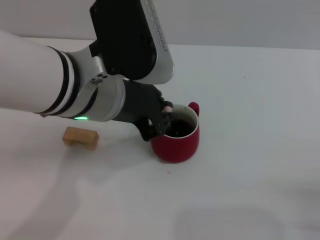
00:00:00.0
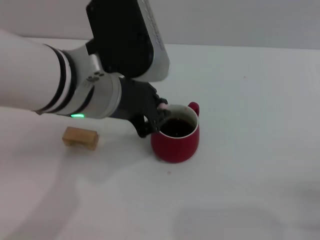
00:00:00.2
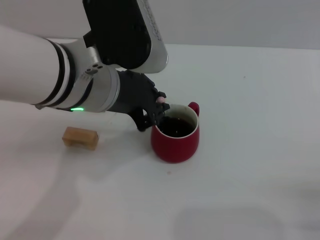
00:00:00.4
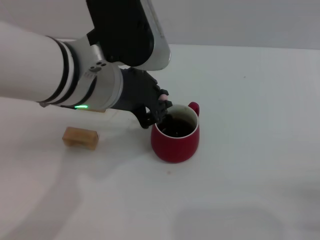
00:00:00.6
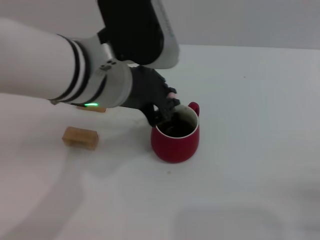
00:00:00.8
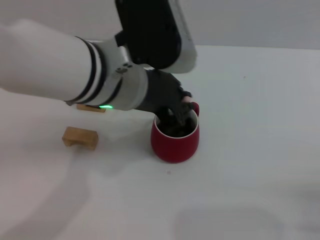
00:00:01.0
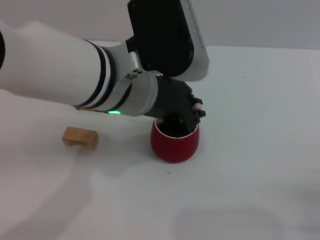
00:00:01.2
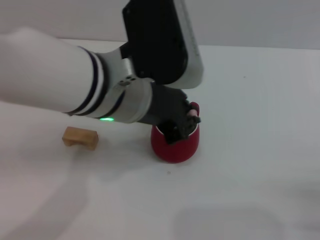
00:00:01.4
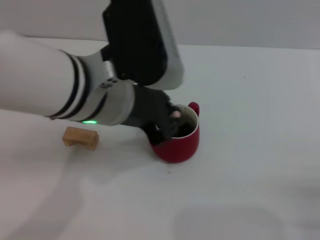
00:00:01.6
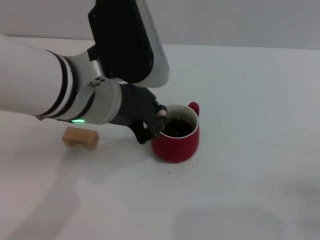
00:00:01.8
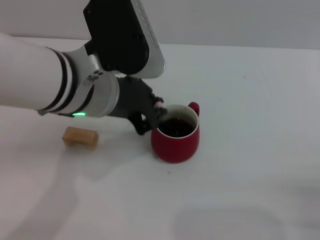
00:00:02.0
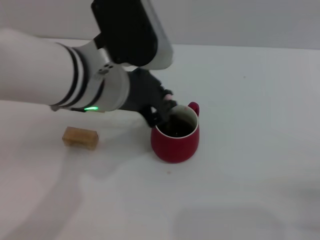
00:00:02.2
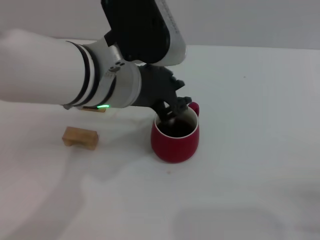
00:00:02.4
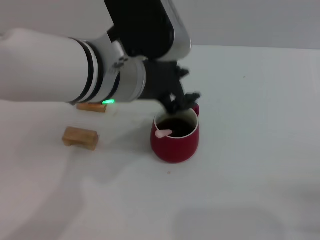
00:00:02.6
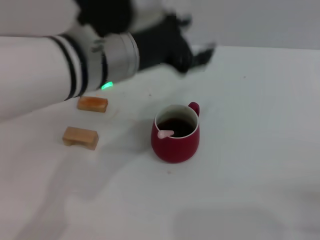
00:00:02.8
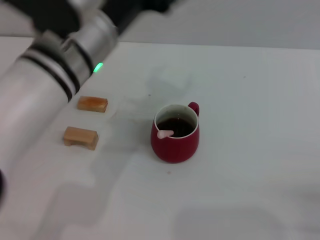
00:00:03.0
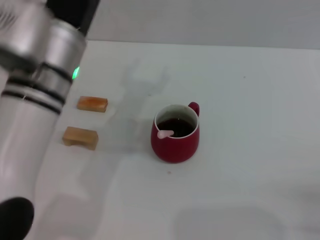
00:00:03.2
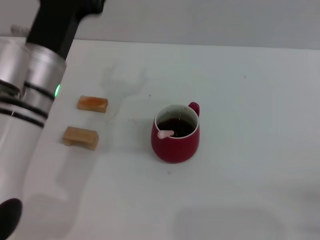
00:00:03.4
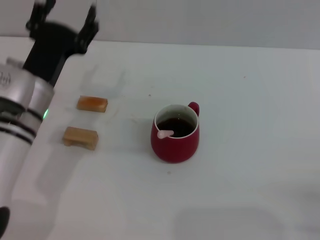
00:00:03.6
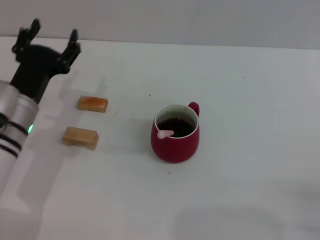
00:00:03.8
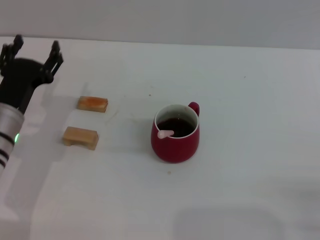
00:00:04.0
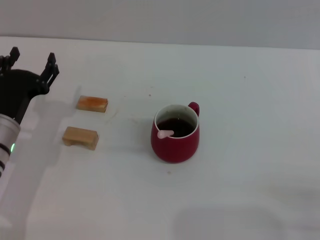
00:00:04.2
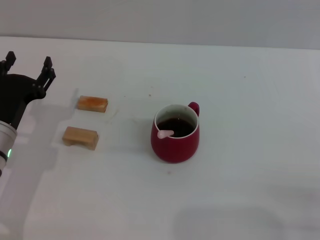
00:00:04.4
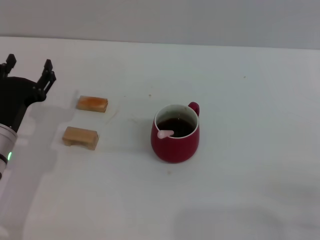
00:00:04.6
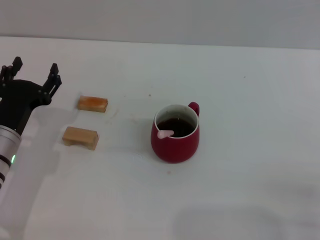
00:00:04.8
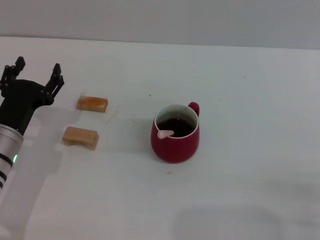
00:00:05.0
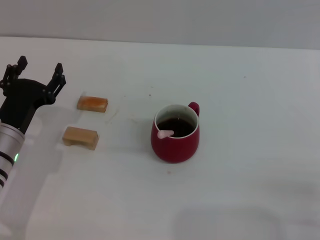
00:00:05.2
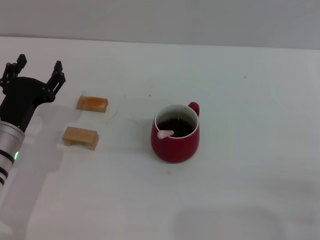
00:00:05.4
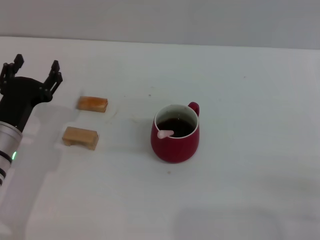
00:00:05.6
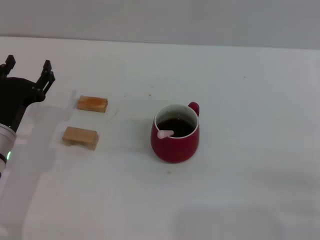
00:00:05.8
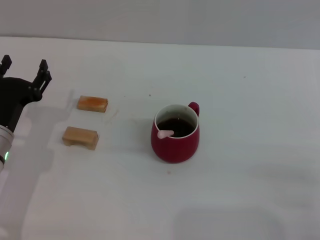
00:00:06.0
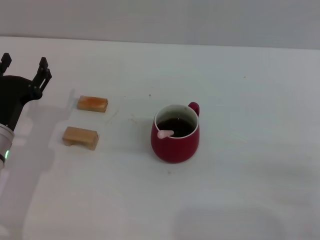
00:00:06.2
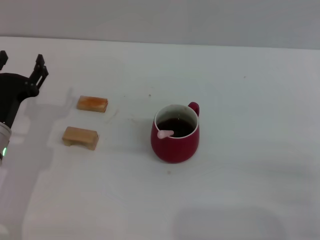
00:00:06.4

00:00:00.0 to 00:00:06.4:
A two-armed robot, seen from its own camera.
Task of the whole recording: Move the red cup to the center, lift the pink spoon, stir it three times in the cup, and put the spoon into the cup.
Step, 00:00:00.0 to 00:00:02.6: Stir the coffee in the cup with the left gripper.
00:00:00.0 to 00:00:01.6: The grippers make only small movements.
00:00:01.6 to 00:00:03.2: The left gripper shifts by about 5 cm, and opens.
00:00:03.2 to 00:00:04.8: The left gripper is displaced downward and to the left by some 20 cm.
00:00:04.8 to 00:00:06.4: There are only small adjustments of the grippers.

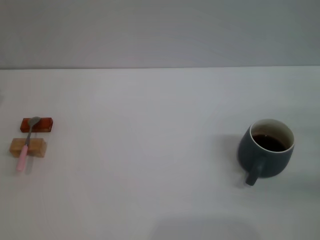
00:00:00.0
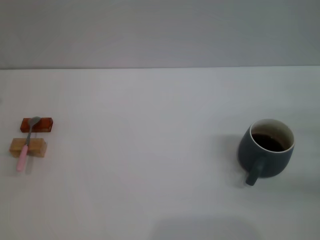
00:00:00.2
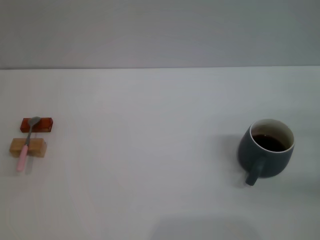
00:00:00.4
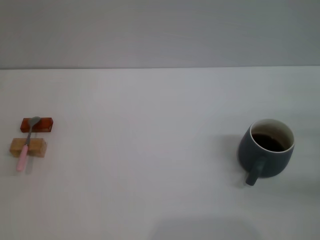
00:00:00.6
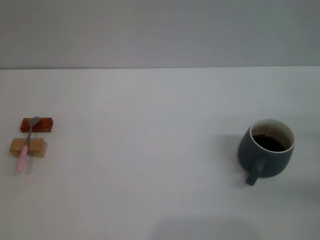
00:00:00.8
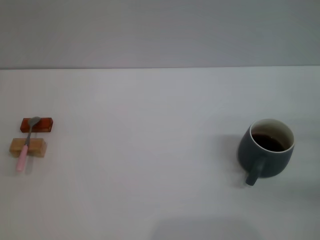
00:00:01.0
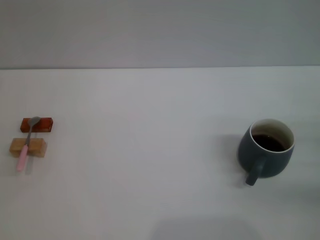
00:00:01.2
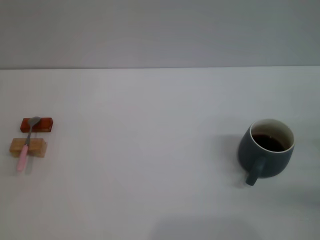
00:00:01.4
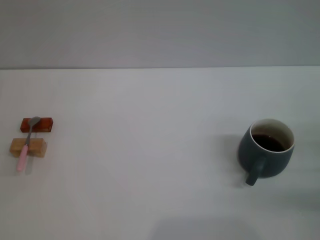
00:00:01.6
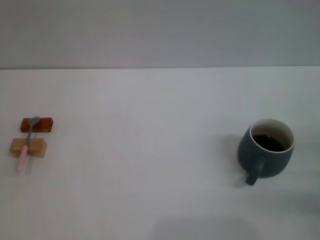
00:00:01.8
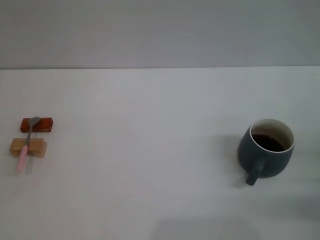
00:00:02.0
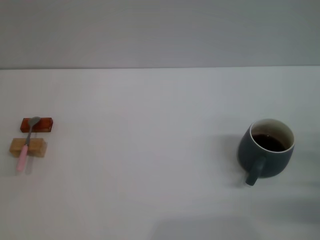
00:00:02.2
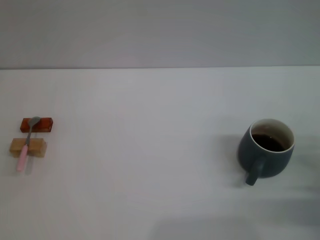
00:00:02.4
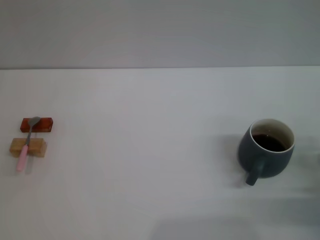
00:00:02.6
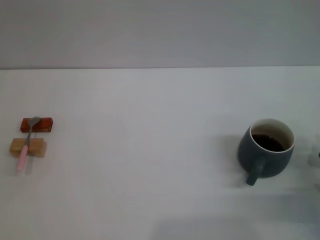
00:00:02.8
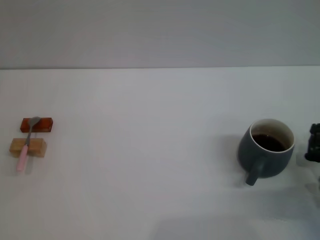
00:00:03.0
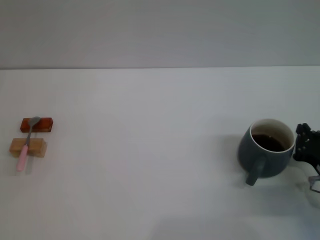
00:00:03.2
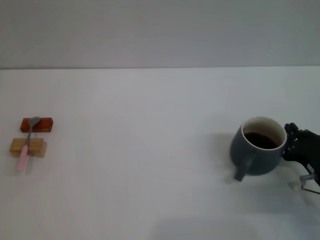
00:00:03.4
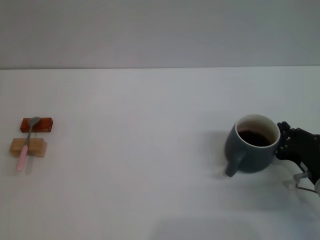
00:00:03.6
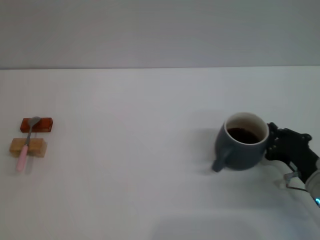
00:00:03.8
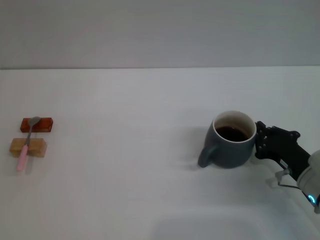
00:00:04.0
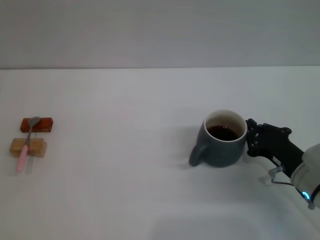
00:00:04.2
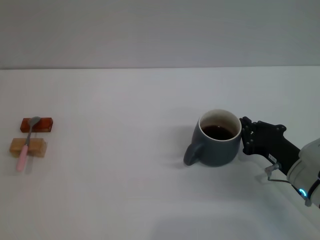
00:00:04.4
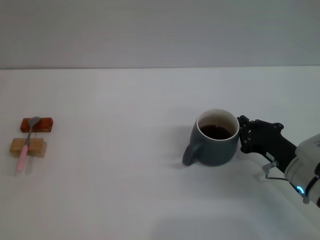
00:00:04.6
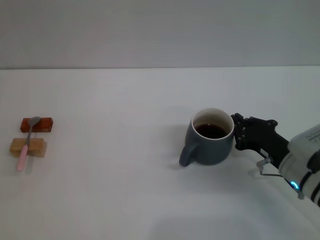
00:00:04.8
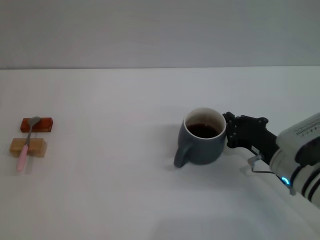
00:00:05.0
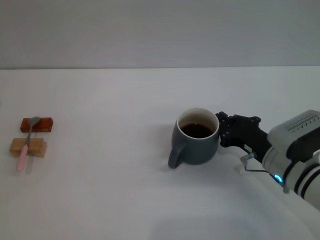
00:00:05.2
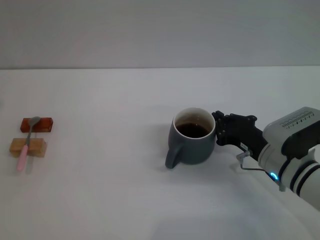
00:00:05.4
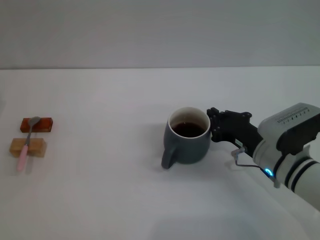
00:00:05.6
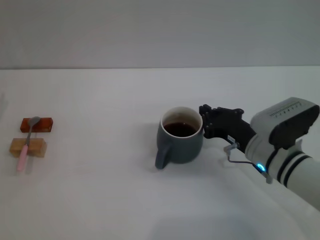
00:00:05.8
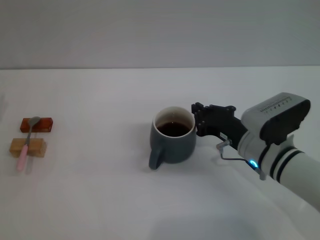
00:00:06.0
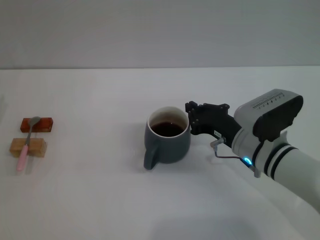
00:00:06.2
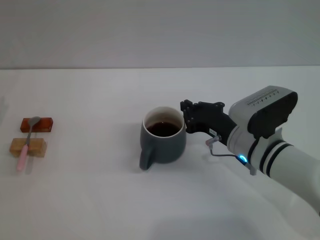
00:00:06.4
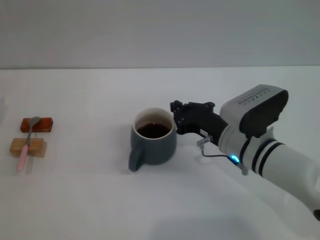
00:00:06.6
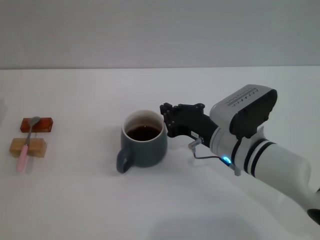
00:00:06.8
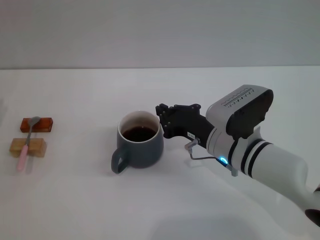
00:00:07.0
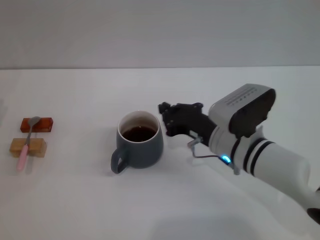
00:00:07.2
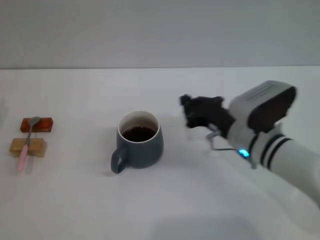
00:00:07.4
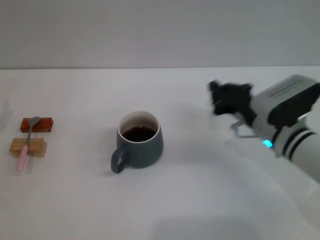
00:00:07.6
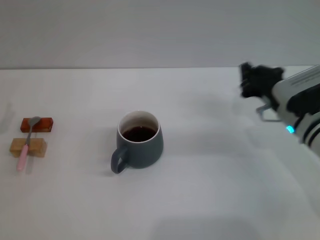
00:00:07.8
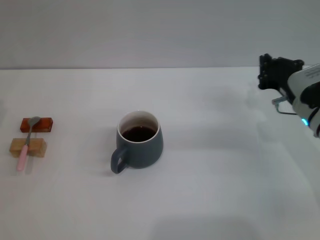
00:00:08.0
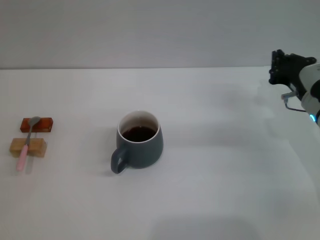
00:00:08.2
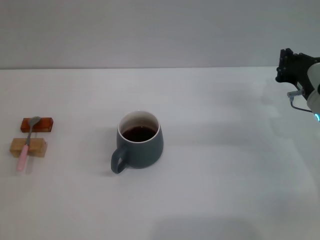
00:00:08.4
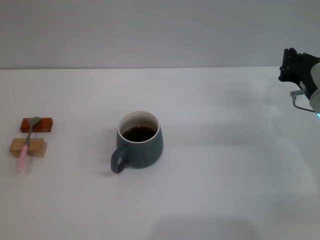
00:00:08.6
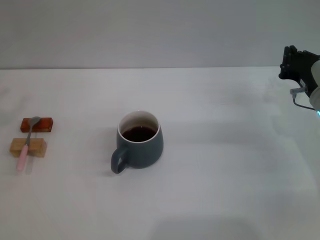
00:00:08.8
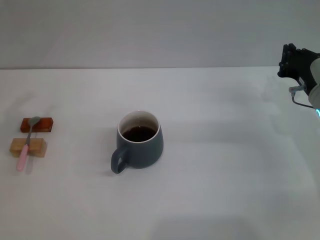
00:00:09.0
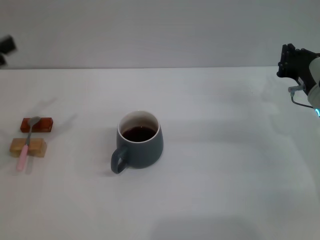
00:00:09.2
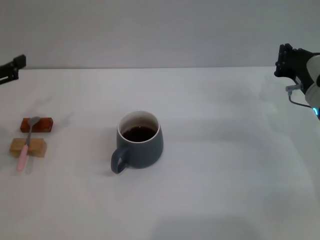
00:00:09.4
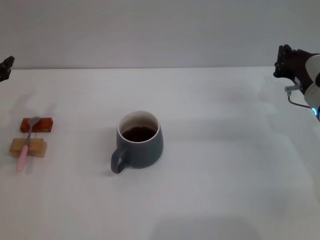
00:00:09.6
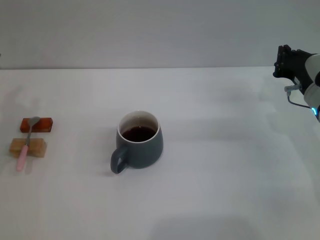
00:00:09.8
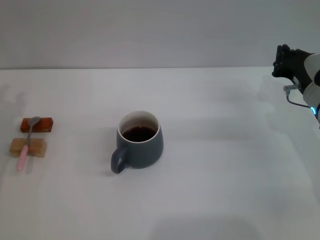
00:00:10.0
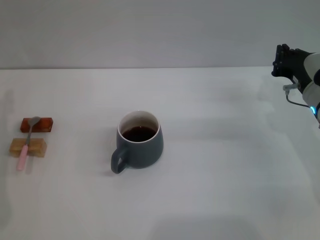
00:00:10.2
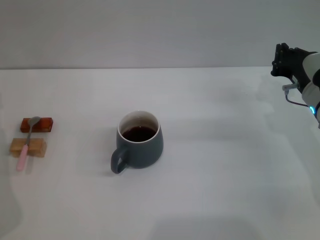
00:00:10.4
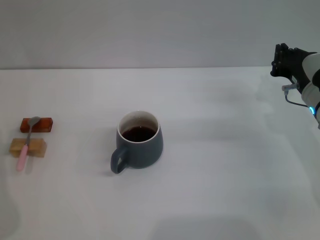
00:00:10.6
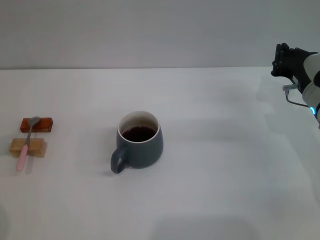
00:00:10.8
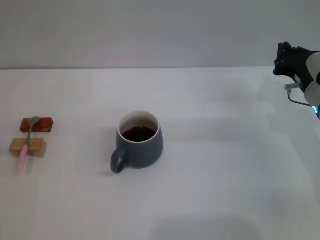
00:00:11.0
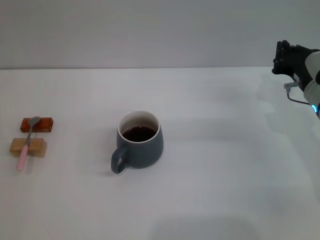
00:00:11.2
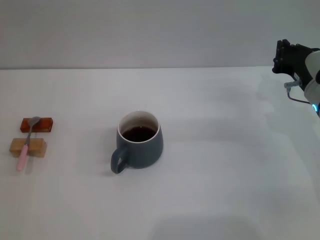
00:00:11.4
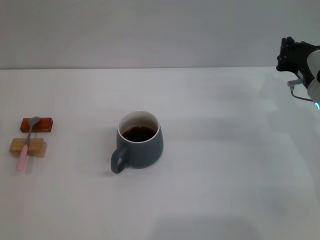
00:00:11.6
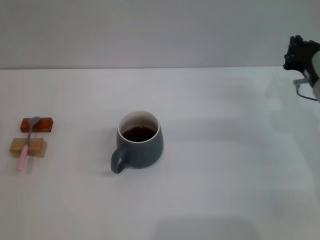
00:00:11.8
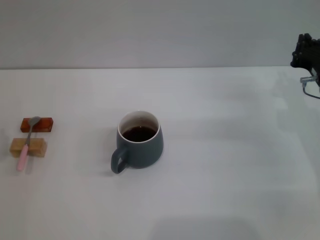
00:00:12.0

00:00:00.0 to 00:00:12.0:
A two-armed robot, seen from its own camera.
Task of the whole recording: Move the grey cup to the center, lift the pink spoon, stir it three times in the cup, and put the spoon into the cup.
Step, 00:00:00.0 to 00:00:07.4: Move the cup with coffee to the center of view with the right gripper.
00:00:01.6 to 00:00:03.0: The right gripper travels to the left by about 5 cm, and closes.
00:00:03.0 to 00:00:04.4: The right gripper travels to the left by roughly 5 cm.
00:00:04.4 to 00:00:06.0: The right gripper moves to the left, about 10 cm.
00:00:06.0 to 00:00:07.6: The grippers make only small movements.
00:00:07.6 to 00:00:09.0: The right gripper heads to the right, covering some 10 cm. The left gripper travels upward by approximately 15 cm.

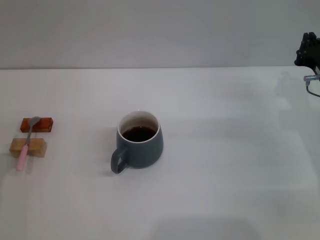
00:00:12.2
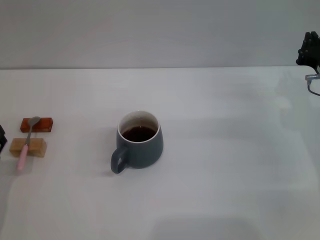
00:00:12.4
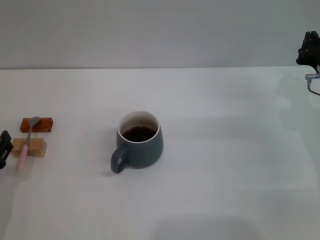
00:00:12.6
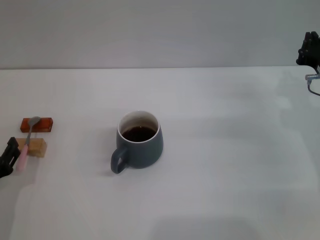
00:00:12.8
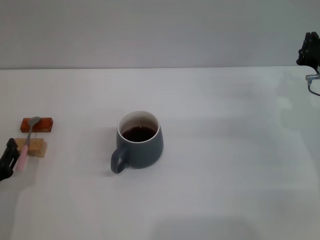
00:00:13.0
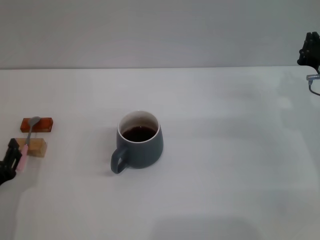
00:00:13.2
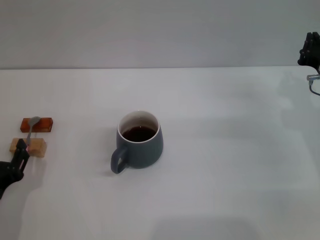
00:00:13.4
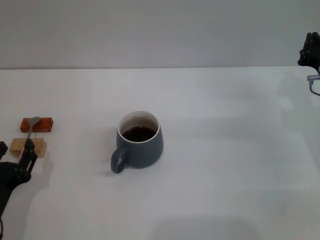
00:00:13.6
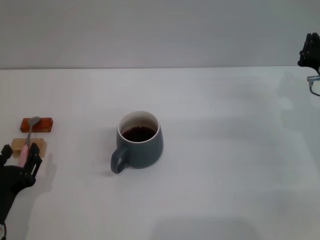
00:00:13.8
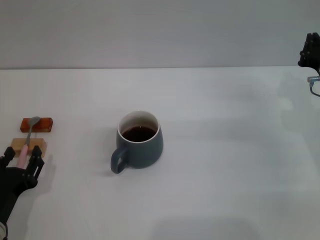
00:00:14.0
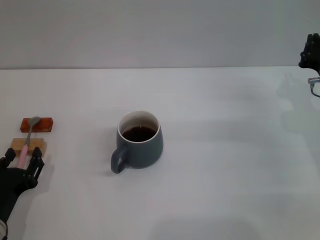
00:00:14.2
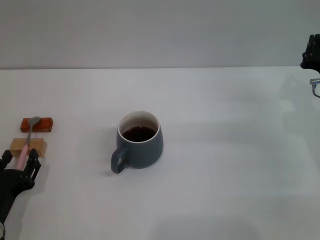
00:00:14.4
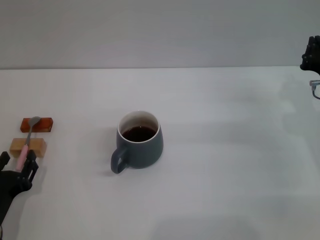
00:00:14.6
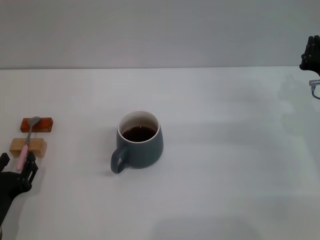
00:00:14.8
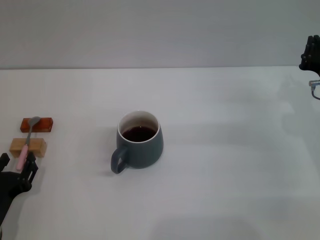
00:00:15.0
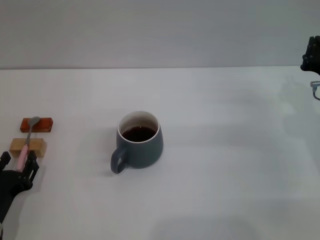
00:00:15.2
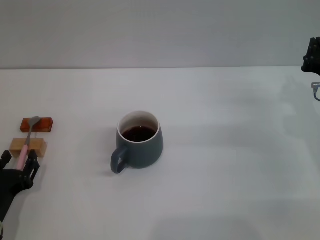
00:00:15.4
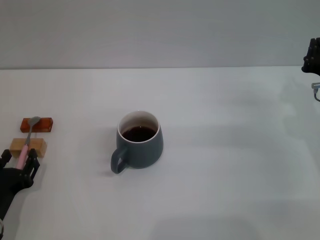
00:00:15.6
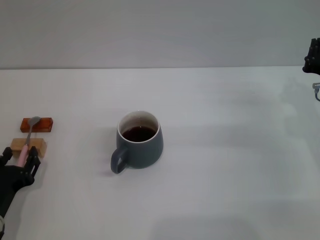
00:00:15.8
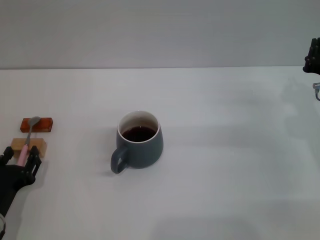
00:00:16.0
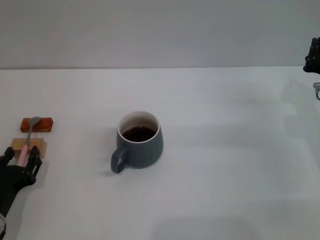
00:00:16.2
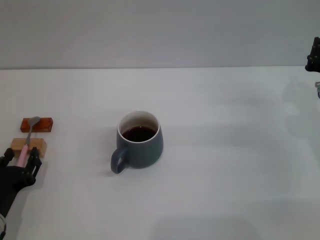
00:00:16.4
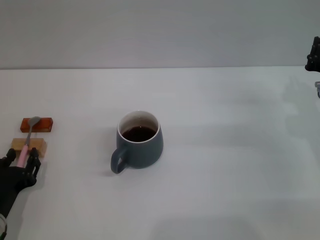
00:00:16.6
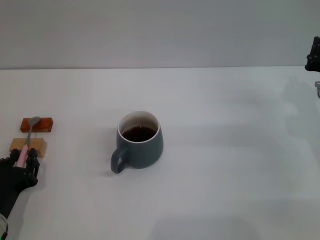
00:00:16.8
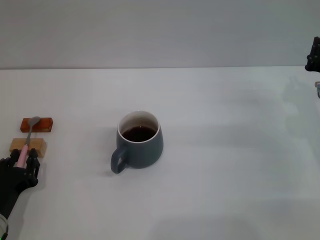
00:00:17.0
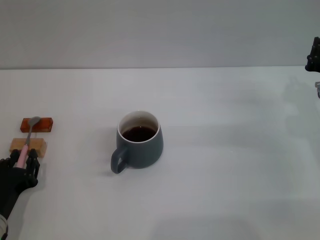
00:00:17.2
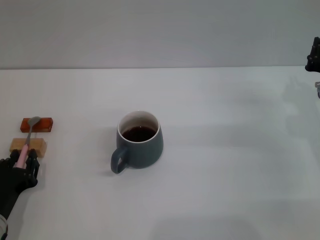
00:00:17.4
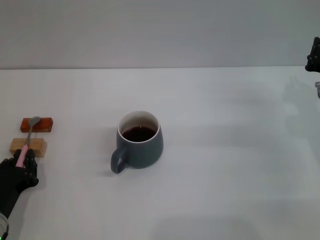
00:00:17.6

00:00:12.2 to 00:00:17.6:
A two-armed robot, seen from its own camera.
Task of the whole recording: Move the grey cup to the center, lift the pink spoon, stir it three times in the cup, and put the spoon into the cup.
00:00:12.2 to 00:00:13.6: The left gripper ends up roughly 5 cm from where it was.
00:00:13.6 to 00:00:15.0: The grippers stay close to where they were, moving slightly.
00:00:15.0 to 00:00:16.2: Neither gripper changes place.
00:00:16.2 to 00:00:17.6: The left gripper closes its fingers.
